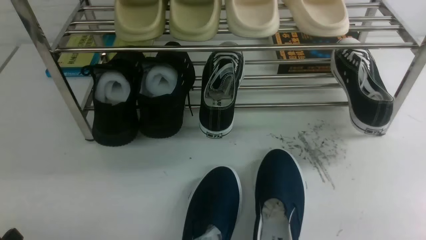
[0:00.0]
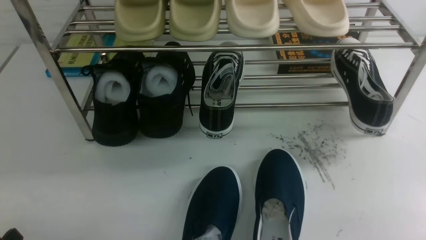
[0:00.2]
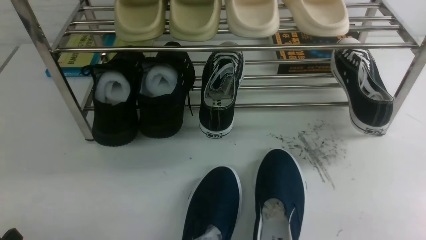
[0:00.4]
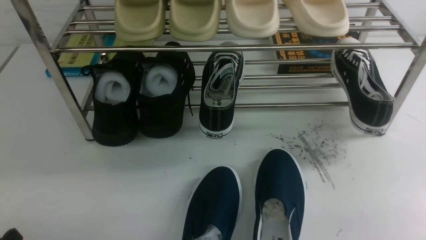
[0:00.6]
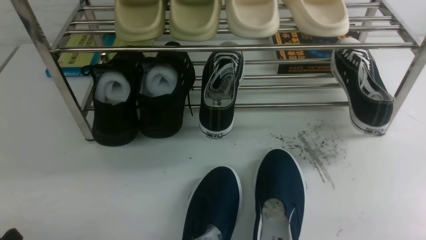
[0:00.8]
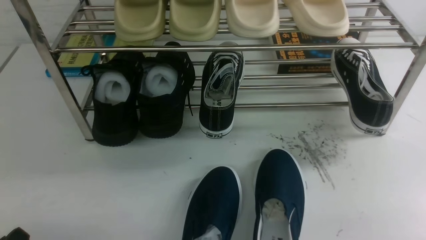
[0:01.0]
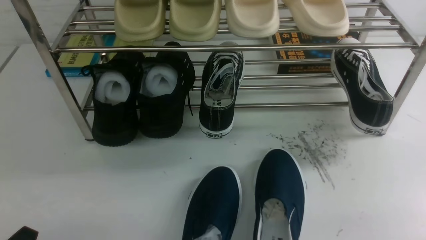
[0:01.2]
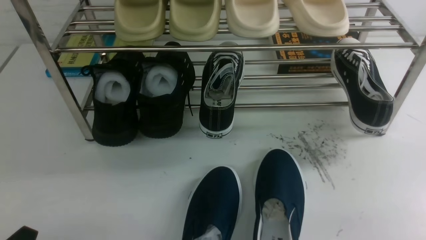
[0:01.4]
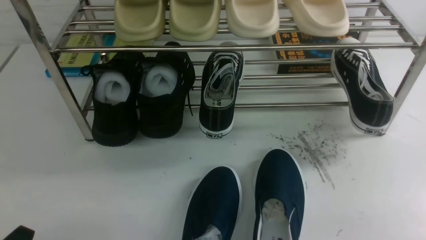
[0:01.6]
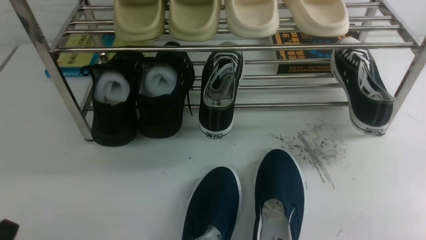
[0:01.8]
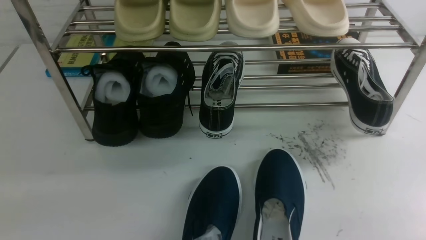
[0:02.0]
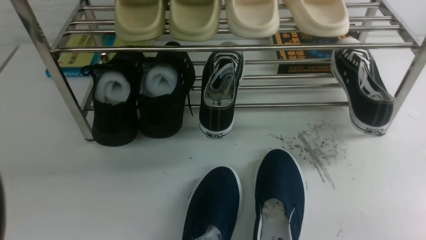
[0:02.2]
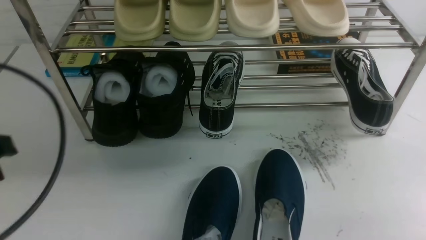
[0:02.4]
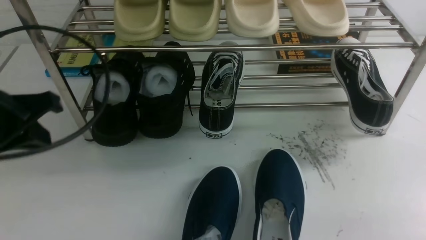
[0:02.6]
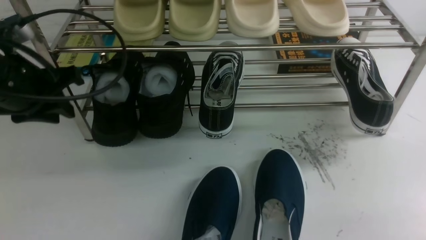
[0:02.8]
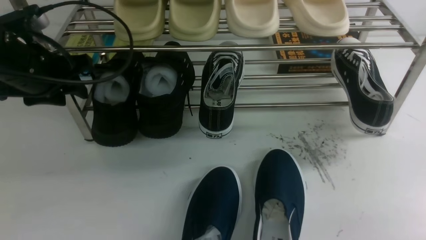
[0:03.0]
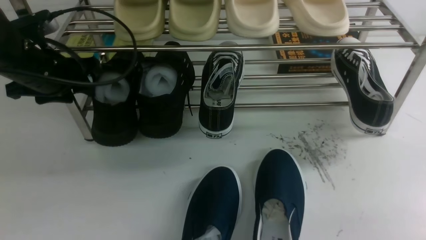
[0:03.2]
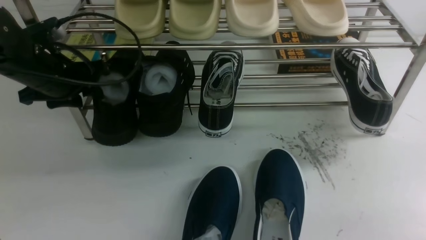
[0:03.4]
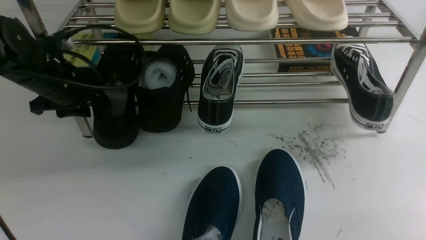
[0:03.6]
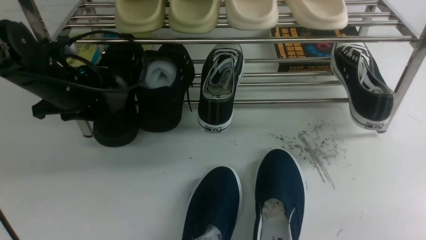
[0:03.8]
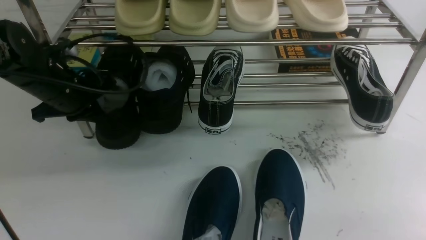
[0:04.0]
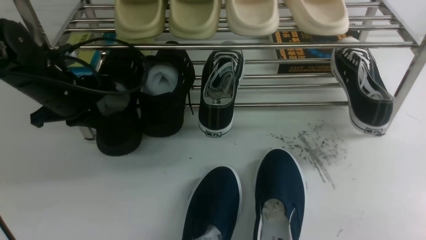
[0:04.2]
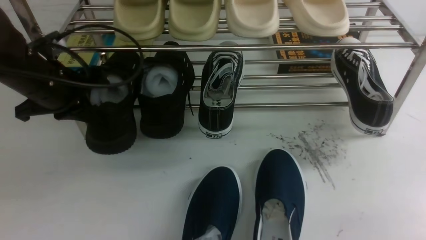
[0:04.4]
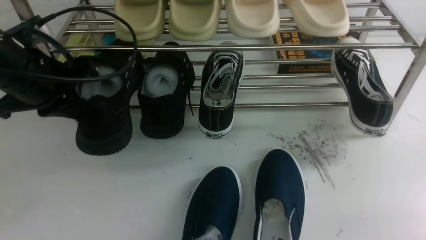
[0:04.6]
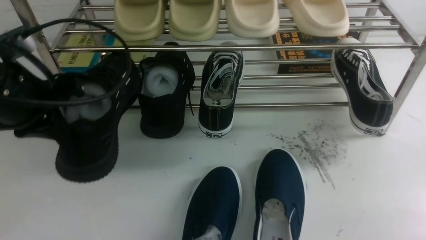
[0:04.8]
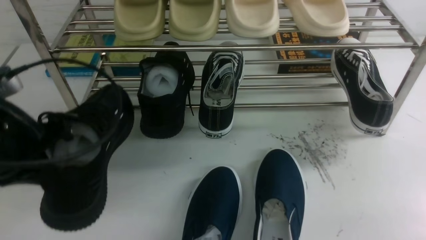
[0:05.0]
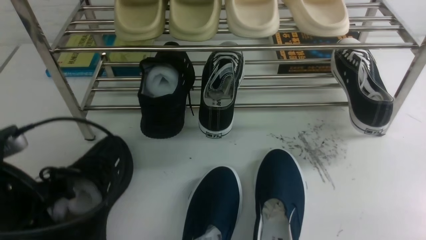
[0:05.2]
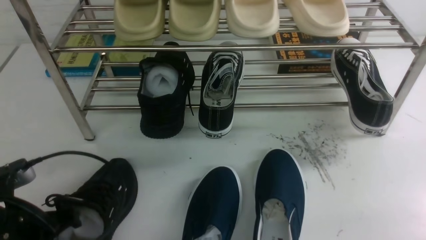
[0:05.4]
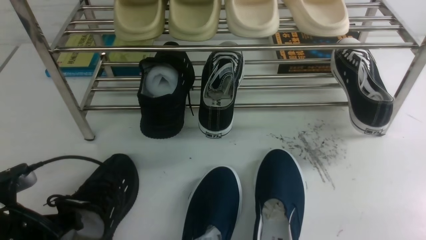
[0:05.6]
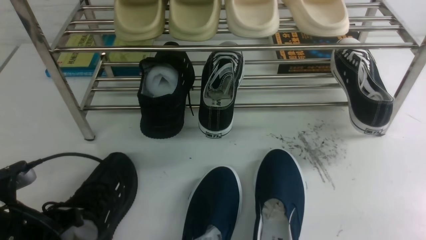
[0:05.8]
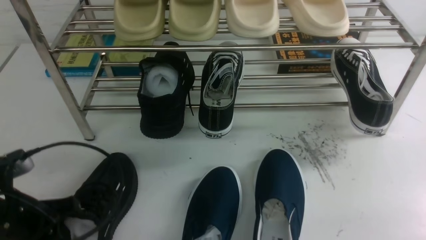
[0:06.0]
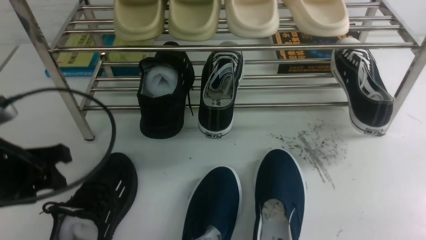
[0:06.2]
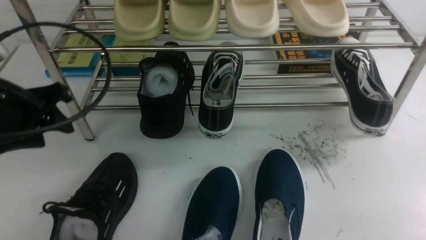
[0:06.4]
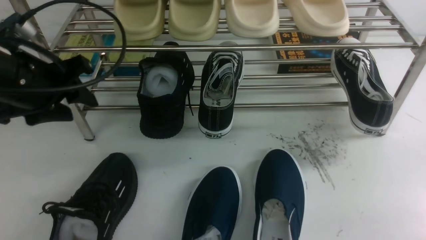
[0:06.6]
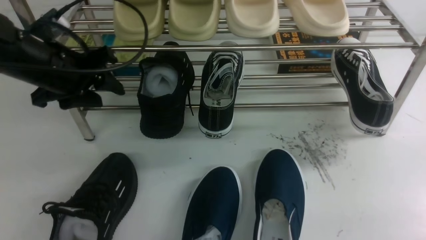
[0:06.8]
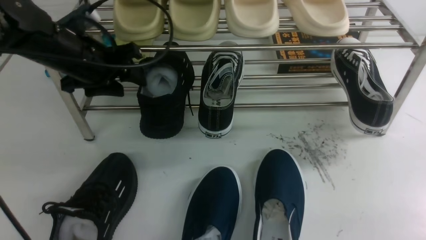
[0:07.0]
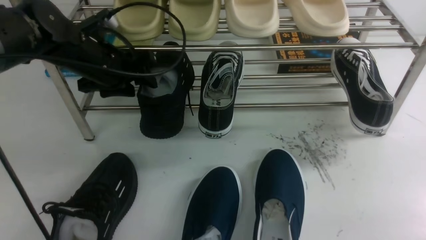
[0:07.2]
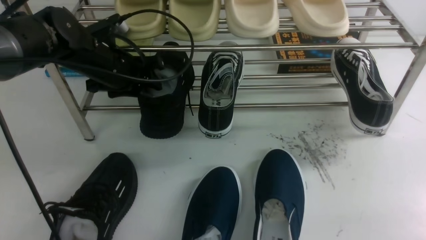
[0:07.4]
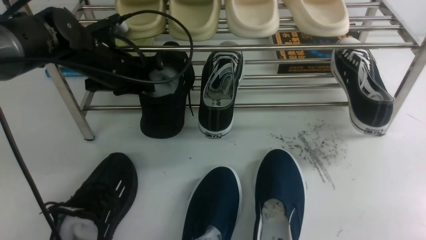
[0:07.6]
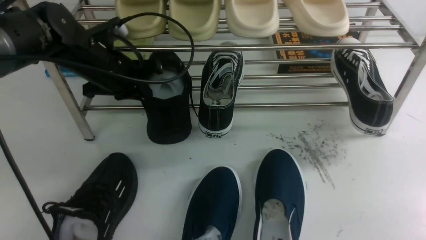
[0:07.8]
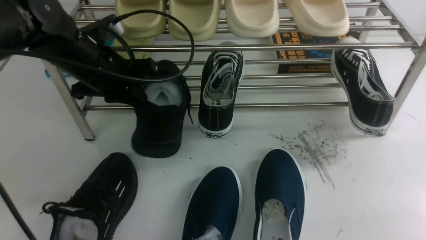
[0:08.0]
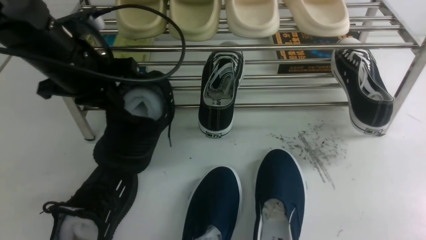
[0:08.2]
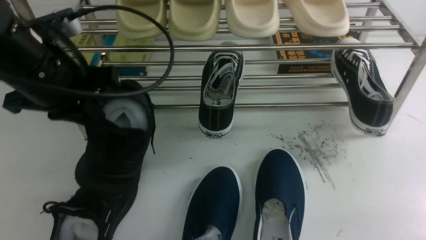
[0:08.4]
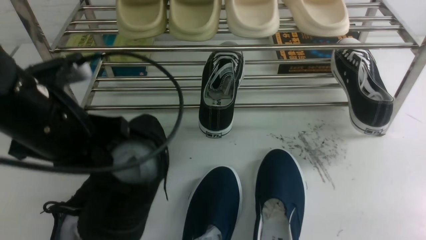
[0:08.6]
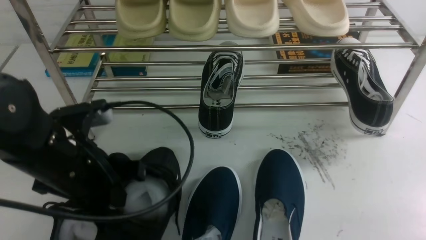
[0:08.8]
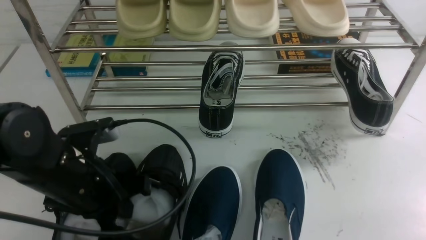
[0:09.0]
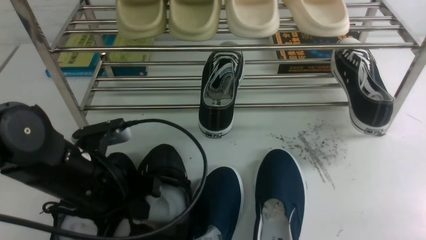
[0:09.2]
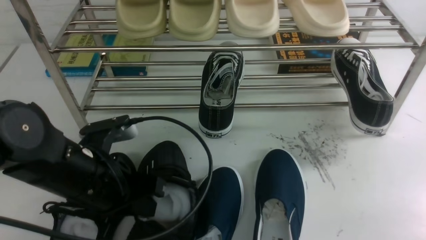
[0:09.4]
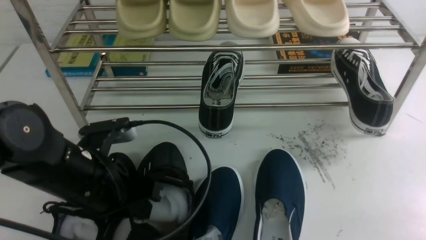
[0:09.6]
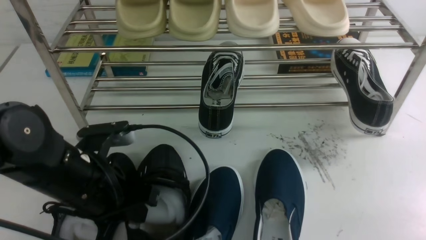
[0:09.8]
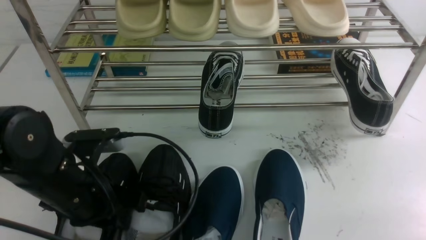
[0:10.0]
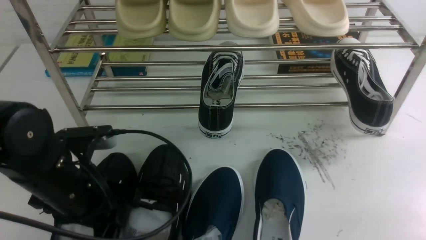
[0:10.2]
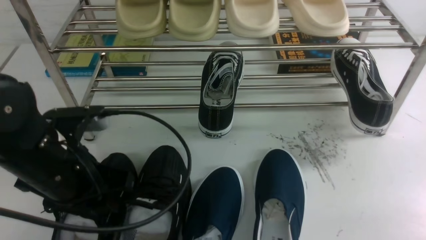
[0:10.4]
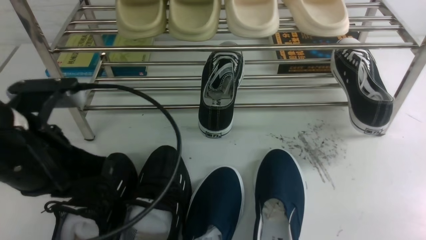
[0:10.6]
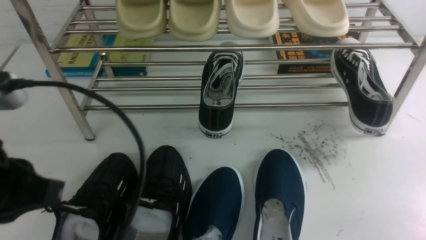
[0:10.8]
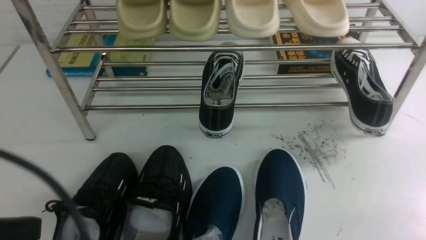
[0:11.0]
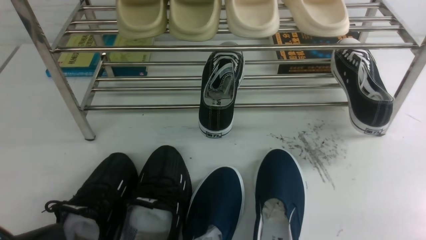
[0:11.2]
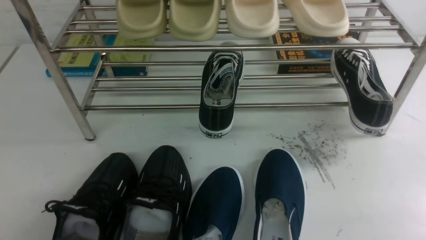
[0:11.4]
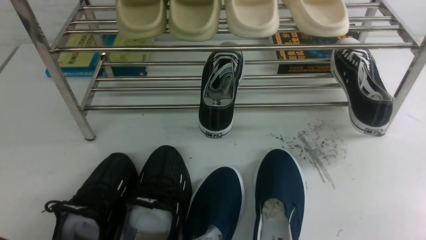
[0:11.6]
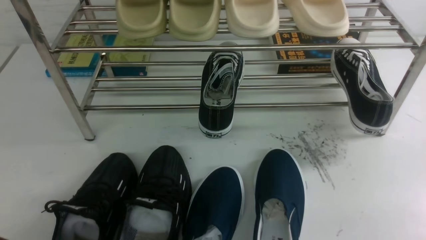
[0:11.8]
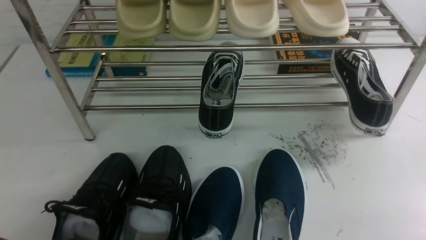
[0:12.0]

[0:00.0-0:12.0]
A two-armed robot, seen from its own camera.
Step, 0:00.0 to 0:04.6: use the left arm to clamp a shoe on the left side of the shoe rack.
Step, 0:05.0 to 0:06.2: Use your left arm to remove the clamped shoe from the shoe rack and put it down.
Step, 0:06.4 to 0:08.0: use the left arm to clamp a shoe on the left side of the shoe rack.
Step, 0:08.2 to 0:10.4: Use your left arm to remove the clamped shoe from the shoe rack and put it down.
0:01.6 to 0:03.0: The left gripper travels forward and upward by roughly 30 cm, and closes, then opens again.
0:03.0 to 0:04.4: The left gripper closes its fingers.
0:04.4 to 0:06.0: The left gripper heads backward, covering roughly 15 cm, and opens.
0:06.0 to 0:07.6: The left gripper travels forward by about 20 cm.
0:07.6 to 0:09.0: The left gripper shifts some 20 cm backward, and closes.
0:09.0 to 0:10.4: The left gripper opens its fingers.
0:10.4 to 0:12.0: The left gripper goes some 15 cm backward, and closes its fingers.

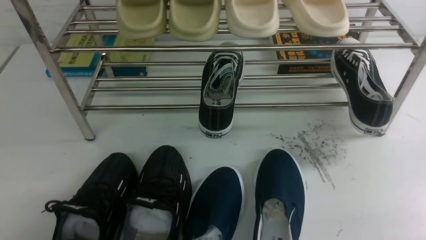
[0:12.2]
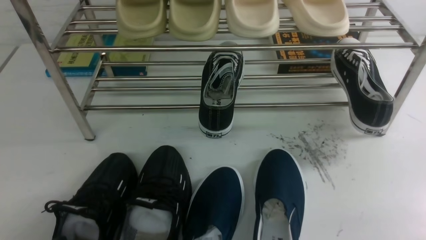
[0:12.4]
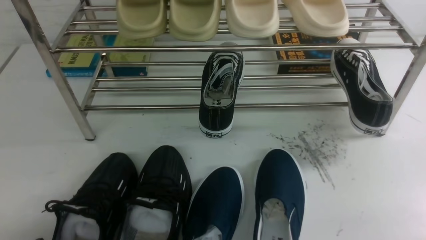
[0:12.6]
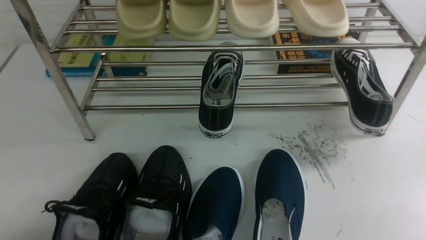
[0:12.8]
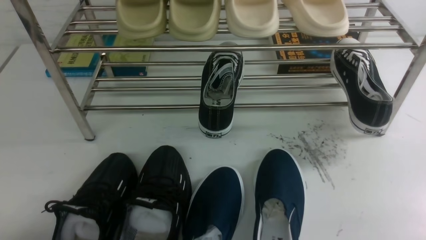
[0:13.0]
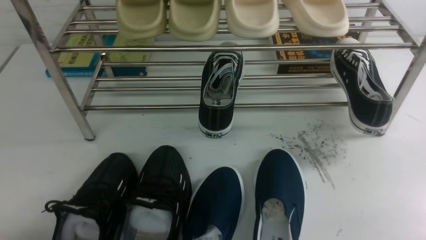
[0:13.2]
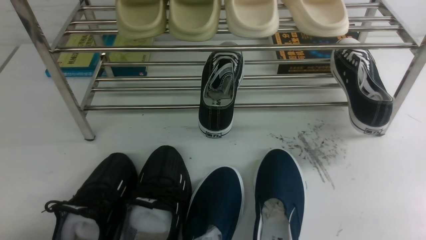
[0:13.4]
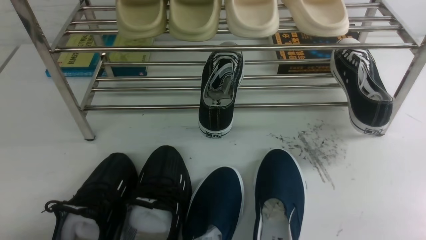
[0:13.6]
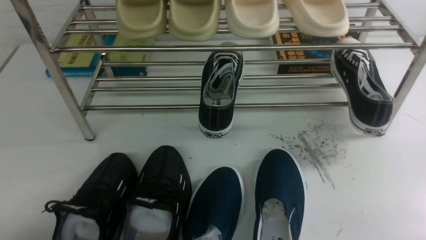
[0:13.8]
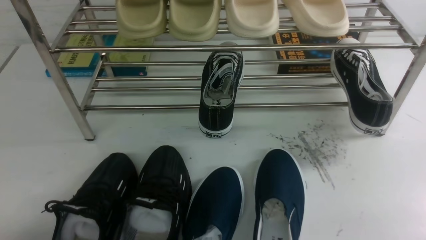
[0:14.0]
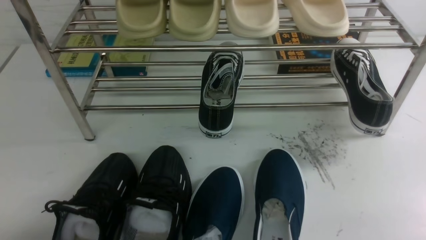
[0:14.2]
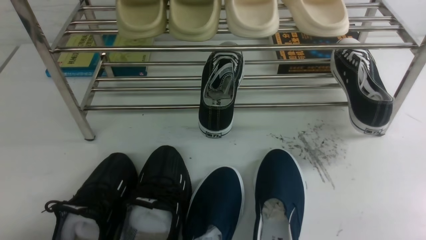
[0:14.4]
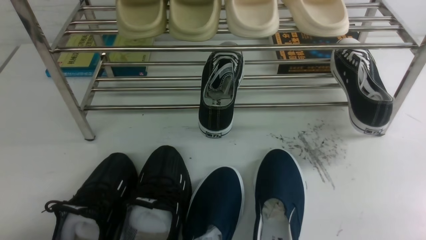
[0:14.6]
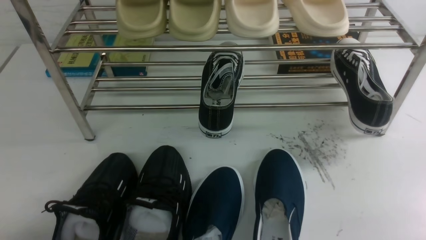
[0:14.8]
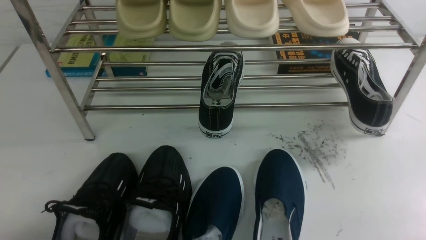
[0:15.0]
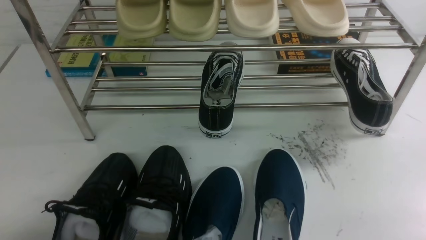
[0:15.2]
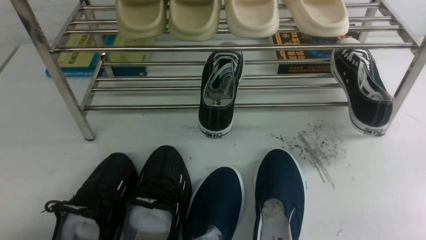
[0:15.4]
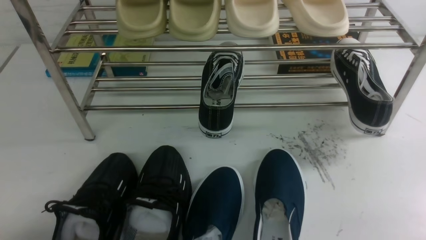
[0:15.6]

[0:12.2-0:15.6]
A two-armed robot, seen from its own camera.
0:13.8 to 0:15.6: The two grippers keep their place.

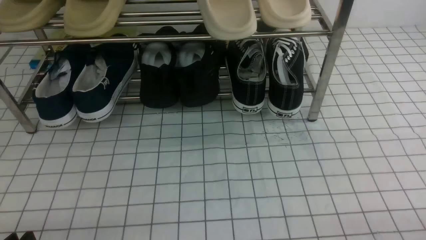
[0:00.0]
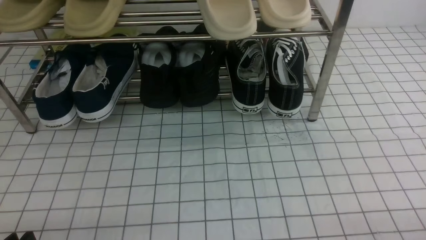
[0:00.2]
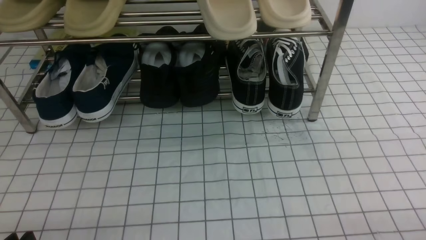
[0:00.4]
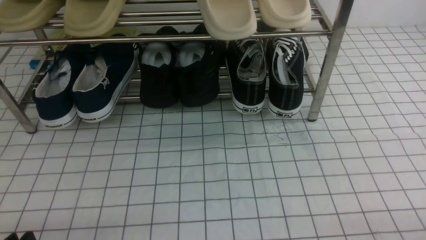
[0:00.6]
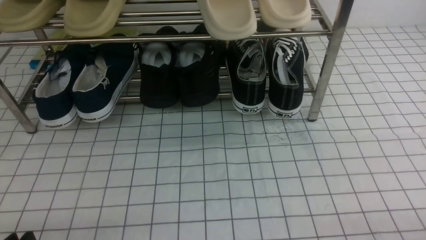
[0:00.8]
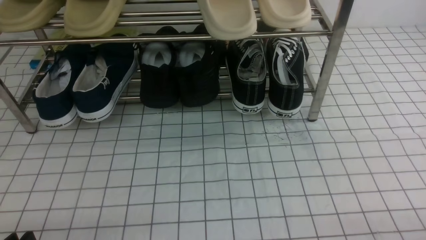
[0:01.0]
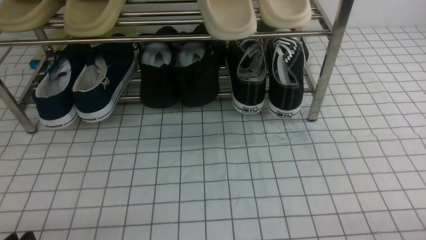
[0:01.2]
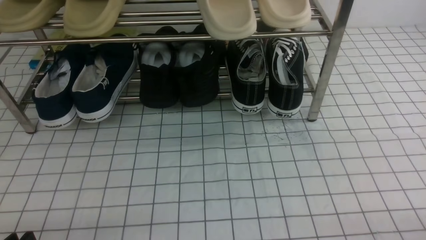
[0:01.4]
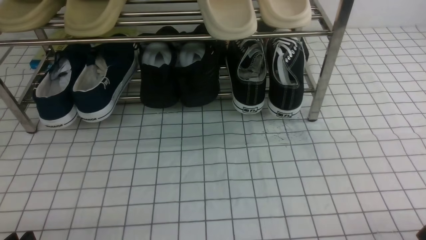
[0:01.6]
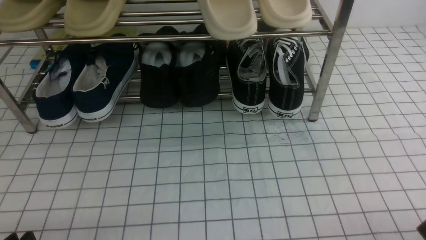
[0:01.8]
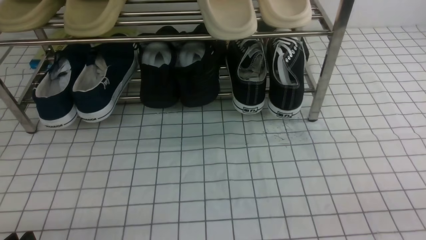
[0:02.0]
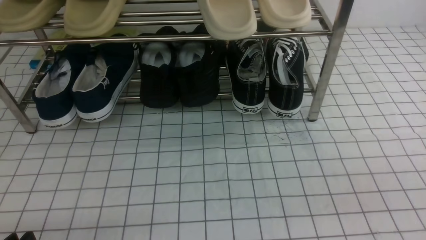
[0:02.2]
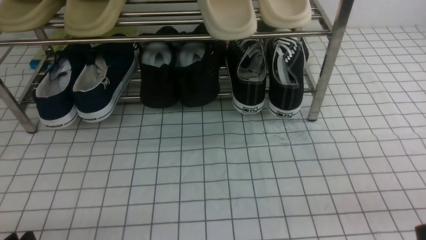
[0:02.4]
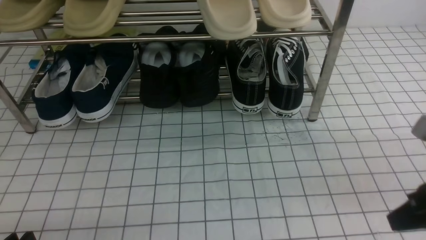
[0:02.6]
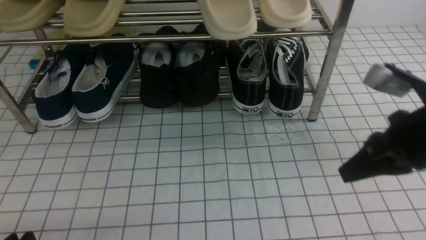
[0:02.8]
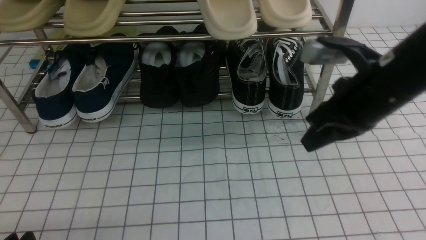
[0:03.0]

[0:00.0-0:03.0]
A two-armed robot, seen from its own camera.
0:01.6 to 0:03.0: The right gripper travels forward, upward and to the left by about 30 cm, and closes up.
